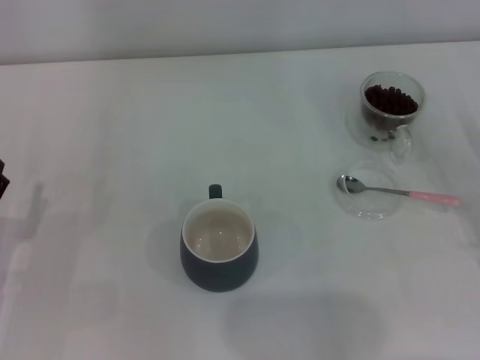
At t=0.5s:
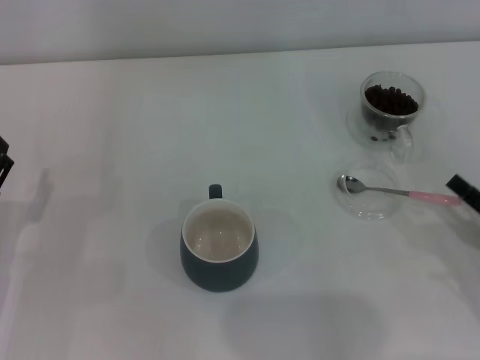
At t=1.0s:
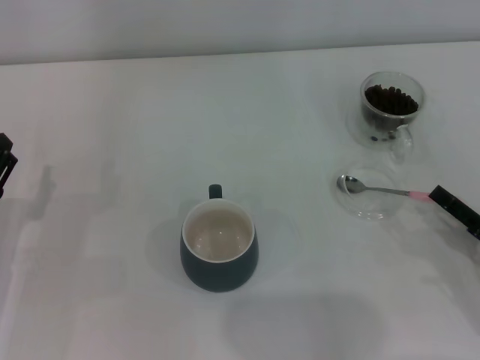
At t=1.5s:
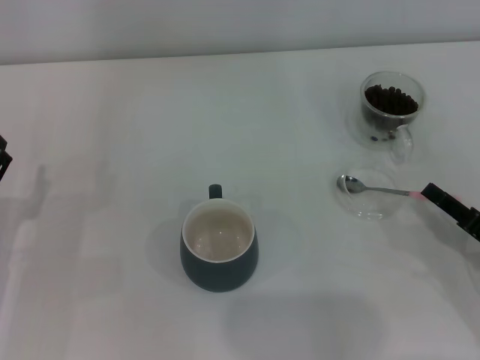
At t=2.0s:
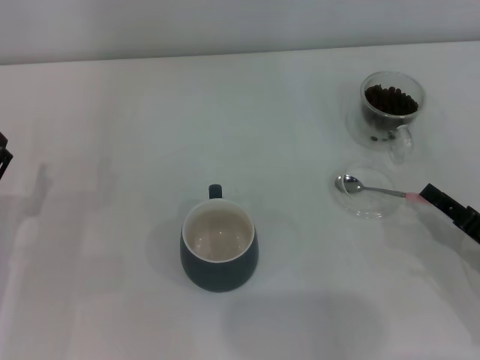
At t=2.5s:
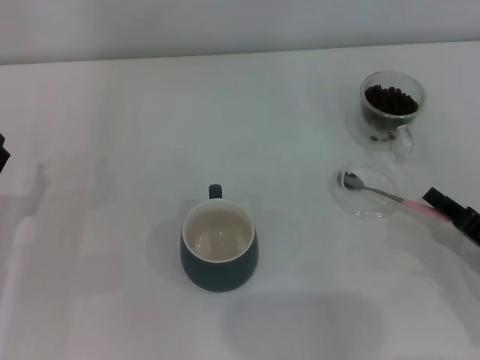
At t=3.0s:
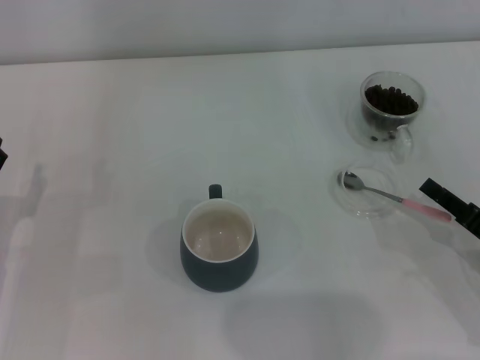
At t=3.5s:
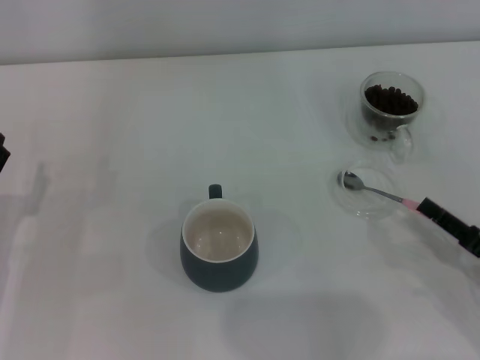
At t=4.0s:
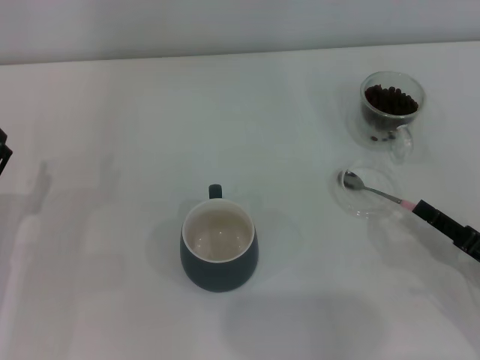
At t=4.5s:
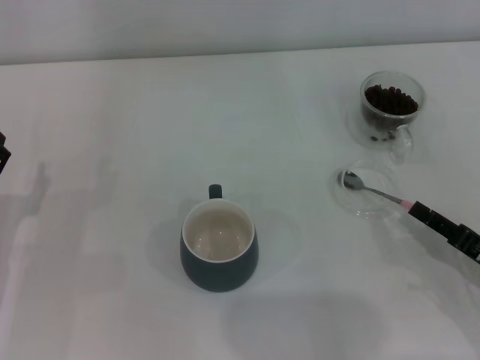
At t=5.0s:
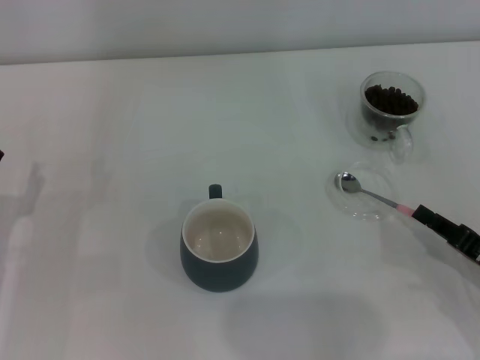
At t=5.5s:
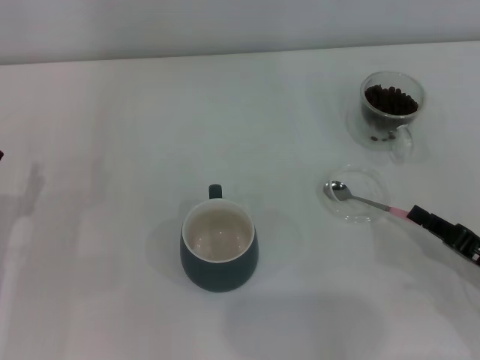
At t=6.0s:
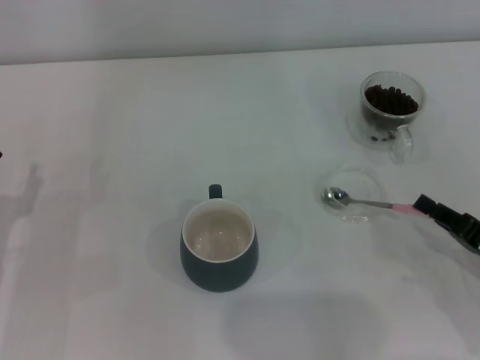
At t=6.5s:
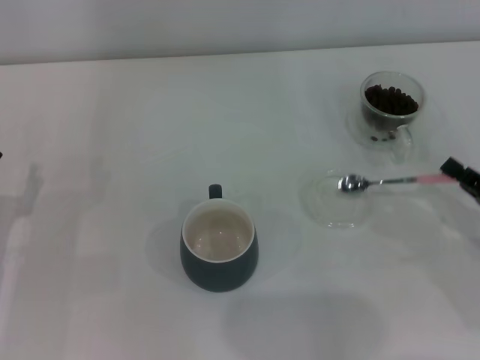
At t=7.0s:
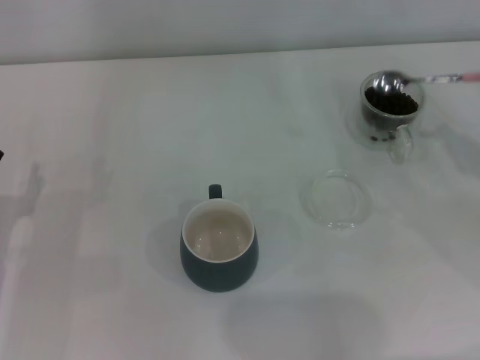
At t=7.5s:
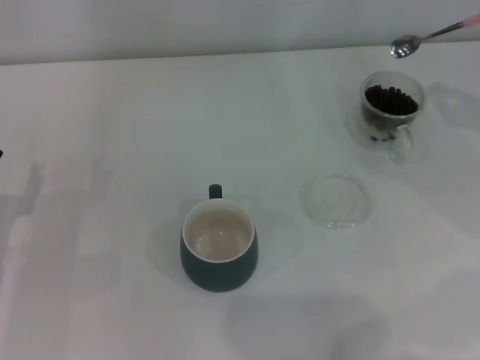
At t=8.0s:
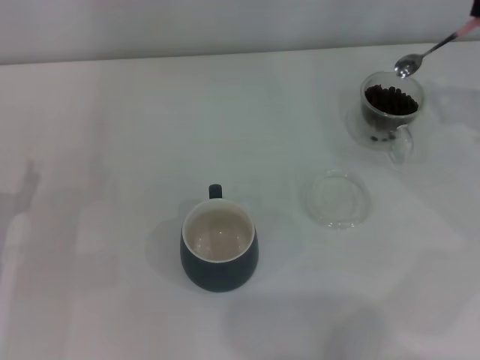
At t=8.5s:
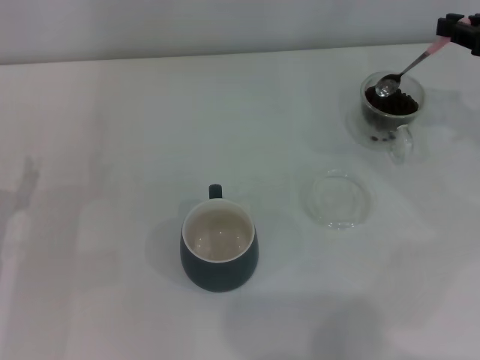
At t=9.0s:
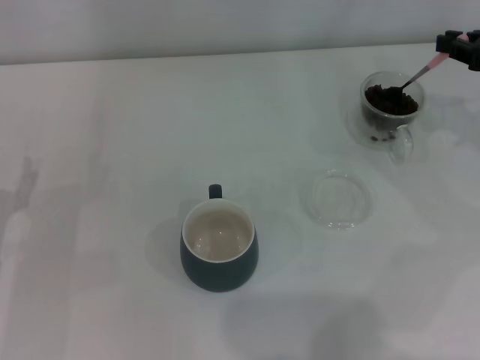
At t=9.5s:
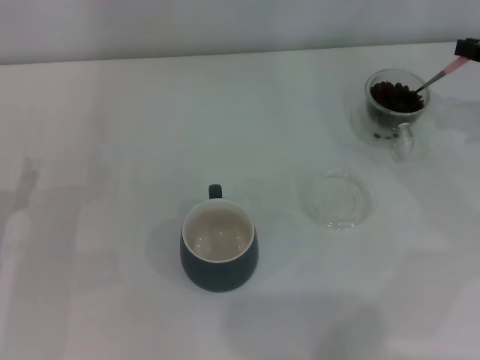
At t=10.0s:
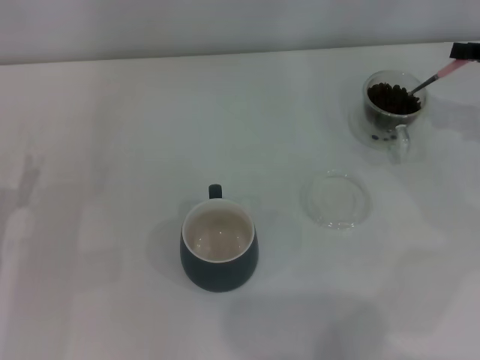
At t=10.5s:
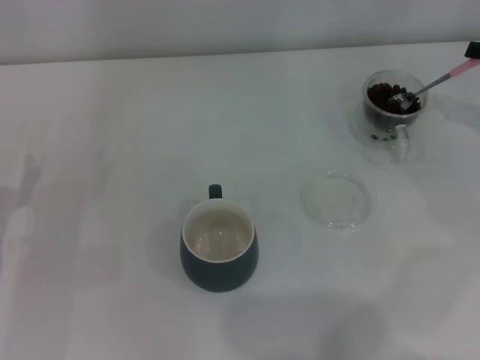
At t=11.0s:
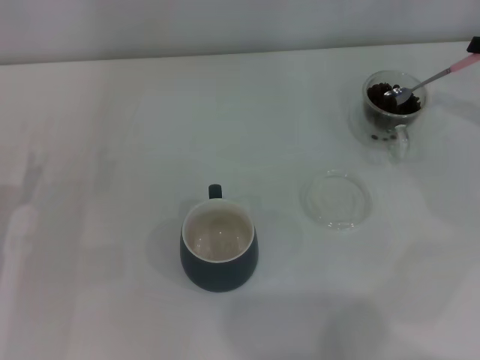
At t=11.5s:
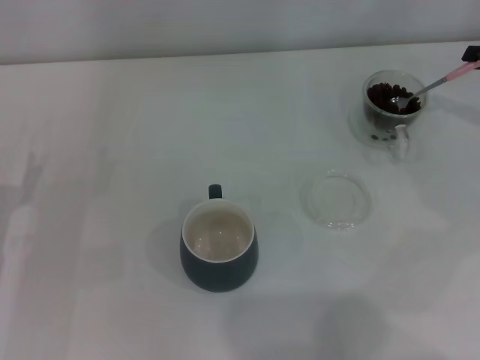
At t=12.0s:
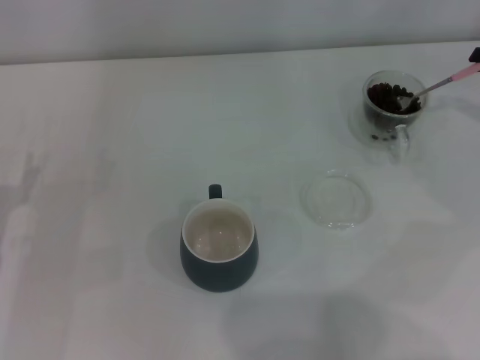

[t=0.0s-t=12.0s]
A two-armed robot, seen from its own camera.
Task of the whole recording: Use a pink spoon to take out the coffee beans from the glass and pour them into the gray cup.
Step, t=0.0s to t=6.0s: Pick up the spoon with the right gripper.
t=0.0s to t=2.0s: The right gripper is displaced to the left by approximately 5 cm, and closes.
t=2.0s to t=4.0s: The right gripper closes and opens again.
t=4.0s to t=6.0s: The right gripper closes up.
t=6.0s to t=8.0s: The right gripper shifts approximately 25 cm upward, forward and to the right.

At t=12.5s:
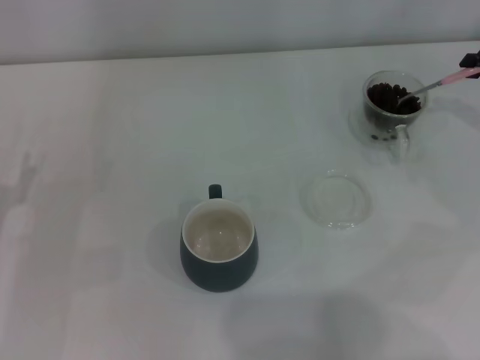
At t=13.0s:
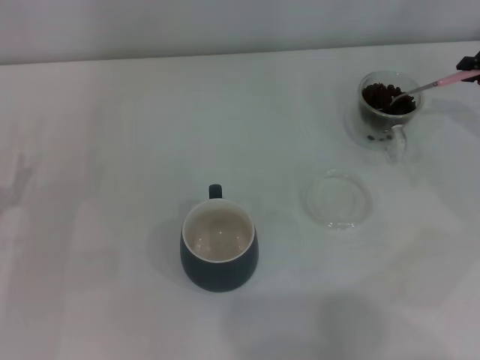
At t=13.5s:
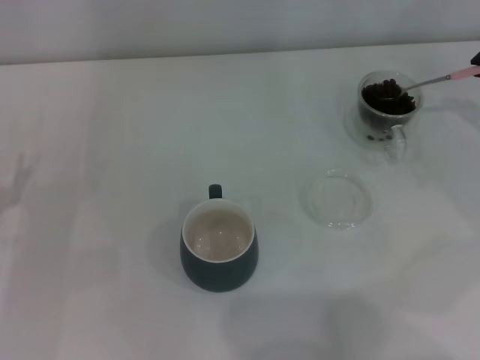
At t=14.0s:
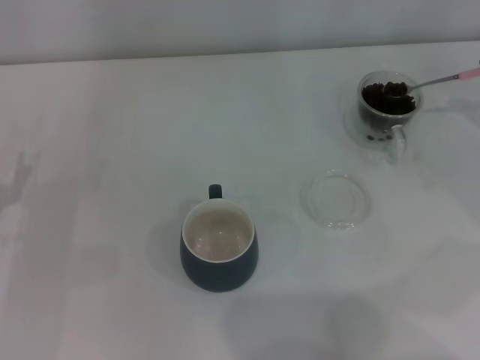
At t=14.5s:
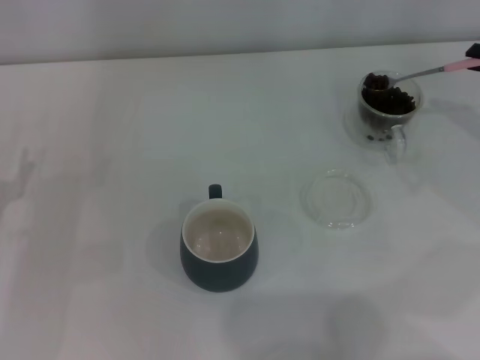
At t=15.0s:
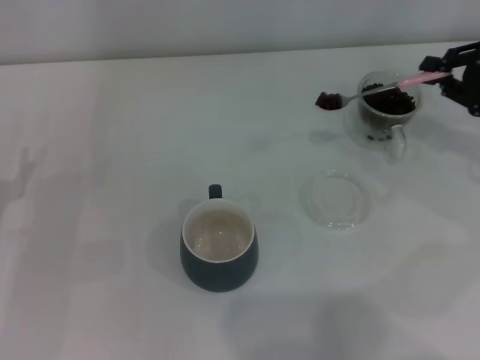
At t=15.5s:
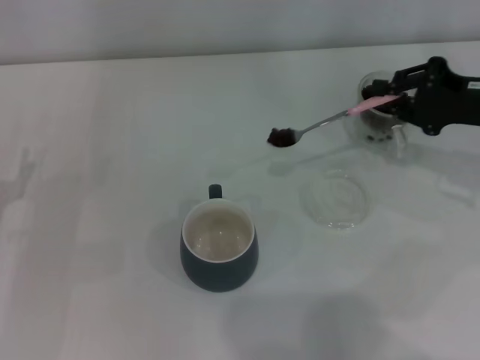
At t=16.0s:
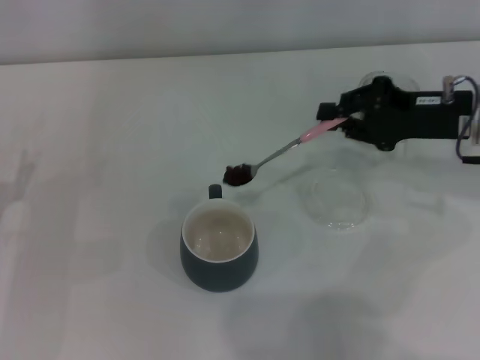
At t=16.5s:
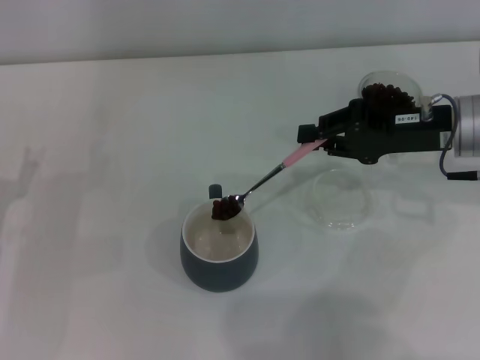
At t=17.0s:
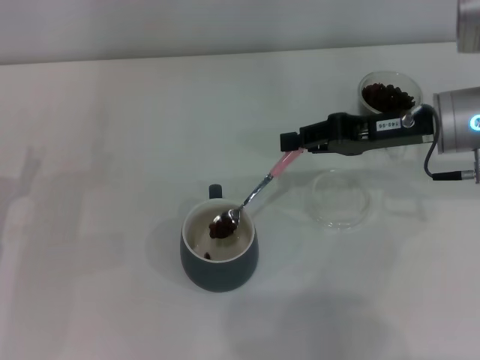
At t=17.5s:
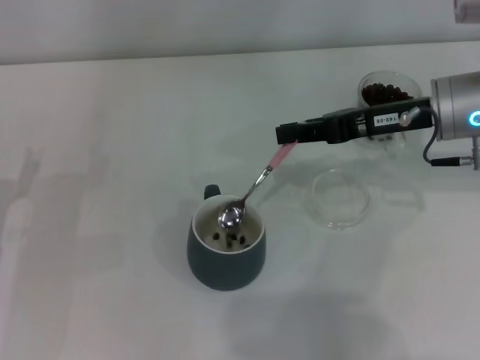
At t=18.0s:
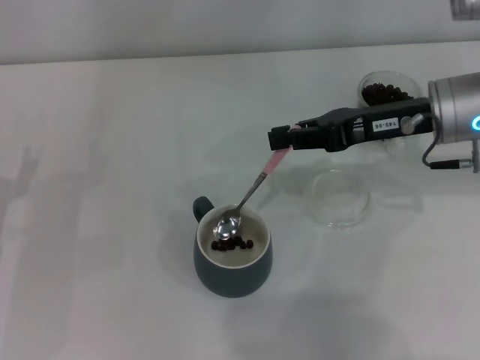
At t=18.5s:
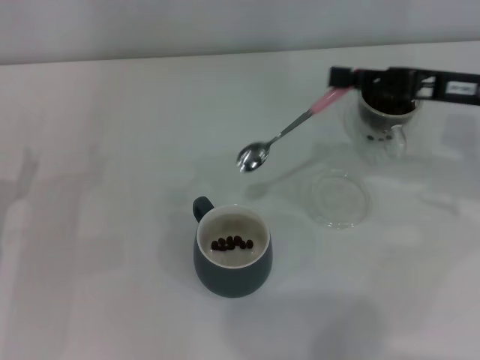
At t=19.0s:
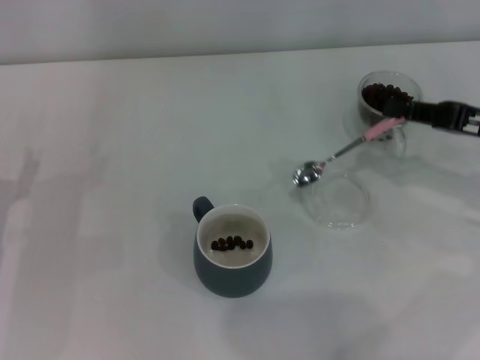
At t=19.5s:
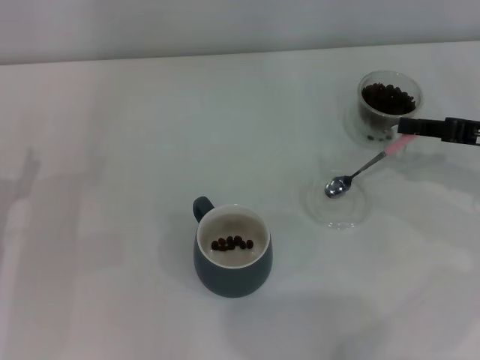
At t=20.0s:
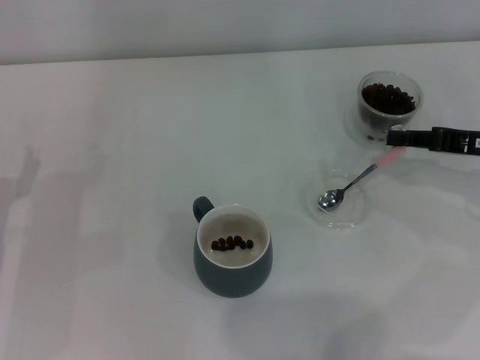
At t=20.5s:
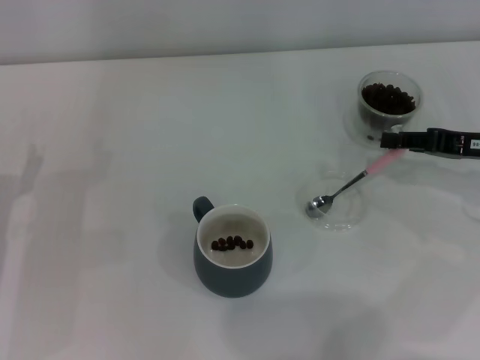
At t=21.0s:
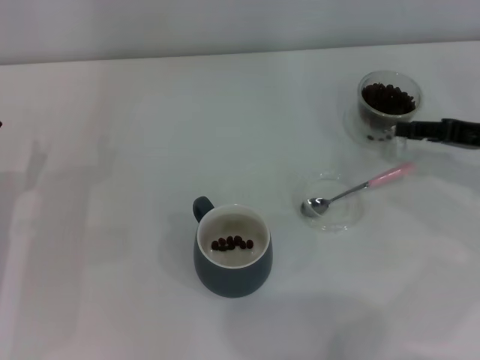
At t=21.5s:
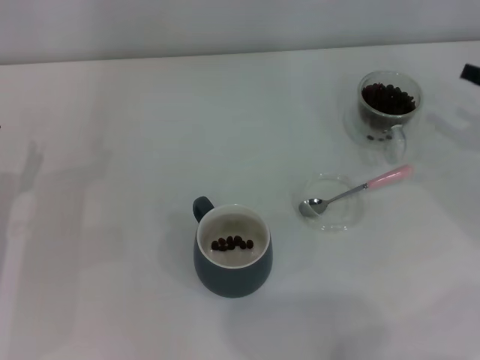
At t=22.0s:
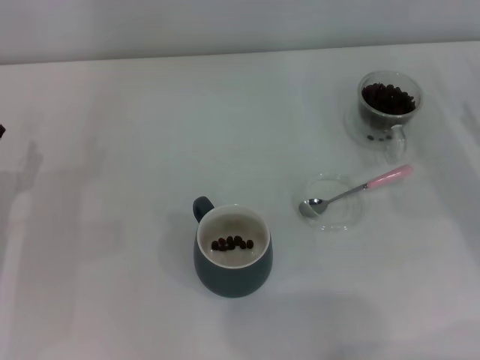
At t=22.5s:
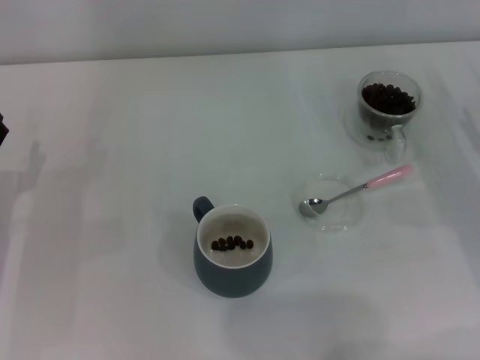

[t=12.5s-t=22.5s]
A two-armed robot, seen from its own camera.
Task of the whole recording: Use a pink spoon to take out the coffee beans from the glass and pour them into the gray cup.
Step, t=12.5s to t=17.5s: Scoop a spoonful of beans into the cup with the right gripper.
Step, t=18.0s to t=20.5s: Place the spoon back in its original place with the right gripper.
t=12.5s to t=14.5s: The grippers stay close to where they were, moving slightly.
t=14.5s to t=16.5s: The right gripper goes approximately 15 cm to the left.
t=18.5s to t=20.5s: The right gripper moves downward and to the right, approximately 10 cm.
t=20.5s to t=22.5s: The right gripper moves downward, some 5 cm, and opens its fingers.
